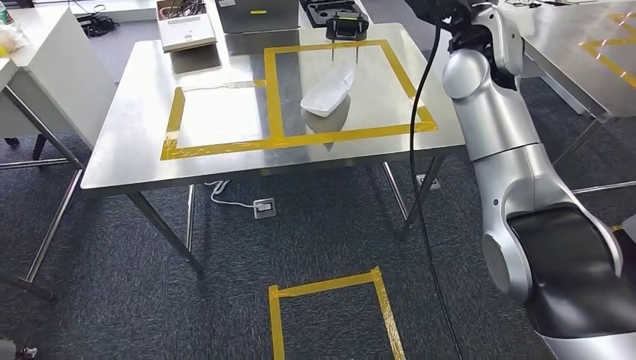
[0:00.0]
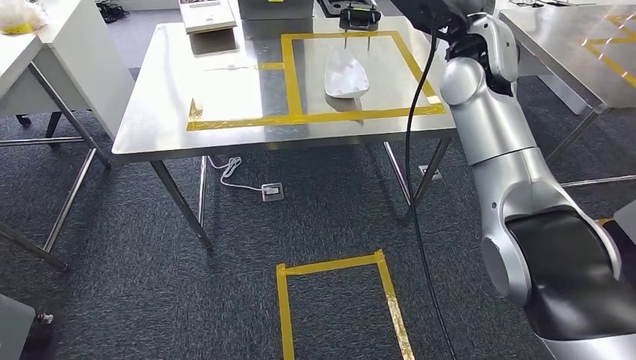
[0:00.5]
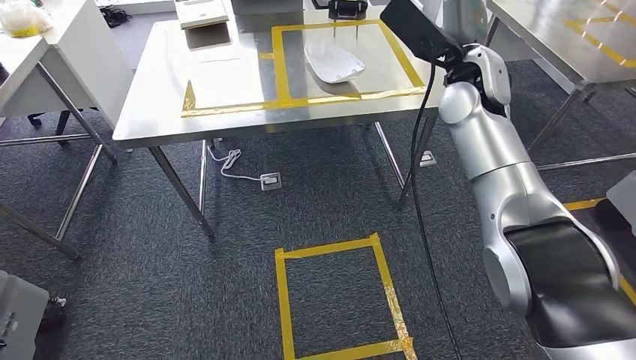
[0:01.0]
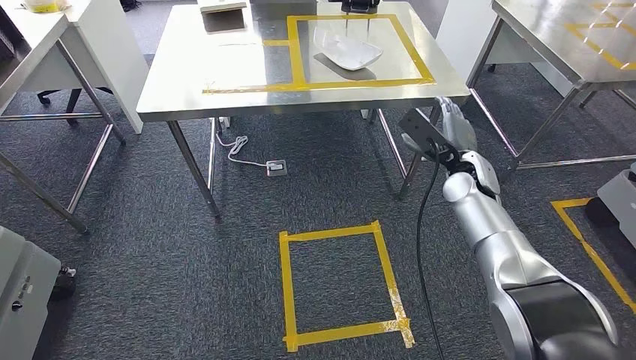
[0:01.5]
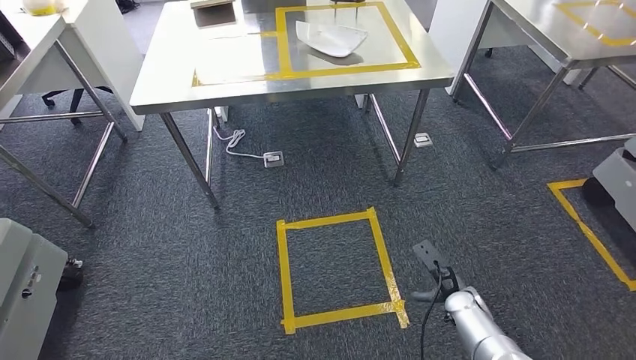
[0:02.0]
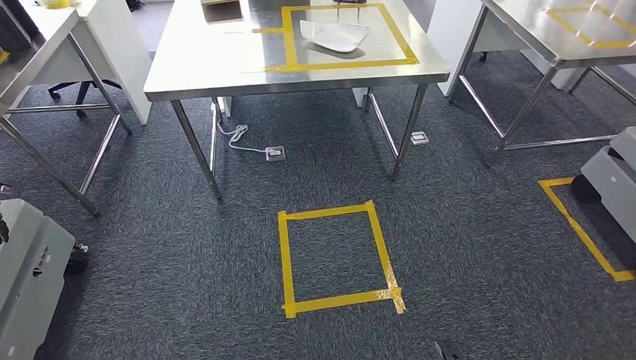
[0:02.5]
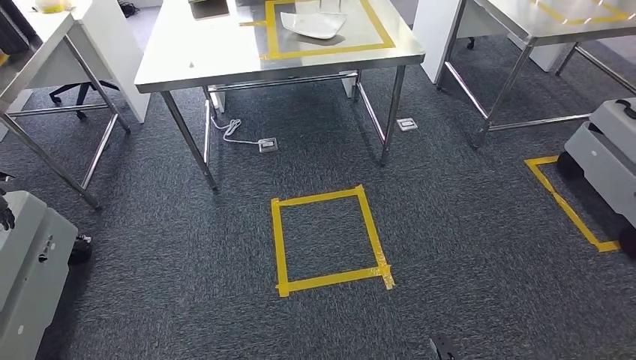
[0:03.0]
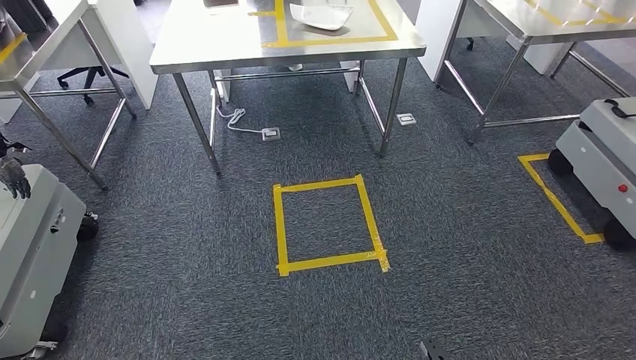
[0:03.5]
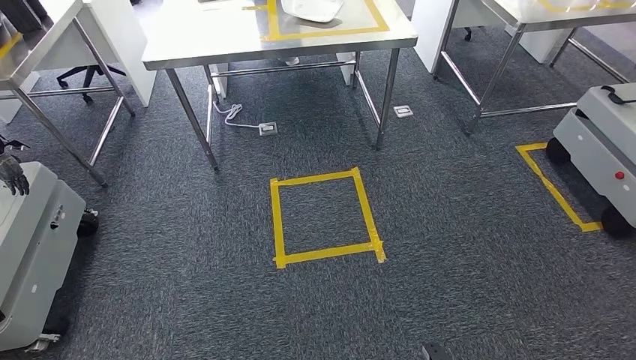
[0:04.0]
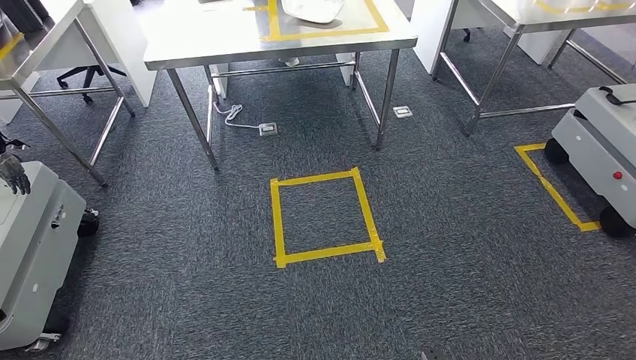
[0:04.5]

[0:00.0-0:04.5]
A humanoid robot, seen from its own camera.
Step, 0:01.5 to 0:04.5: Move to the initial position at the workbench.
